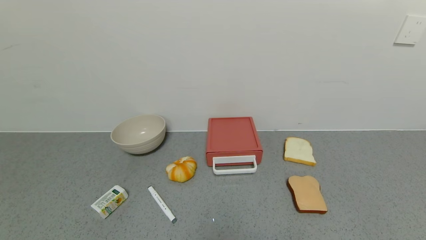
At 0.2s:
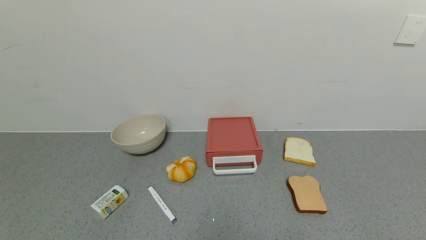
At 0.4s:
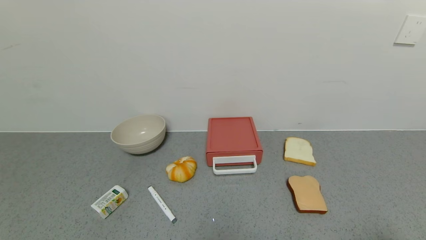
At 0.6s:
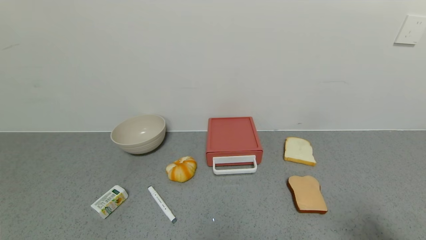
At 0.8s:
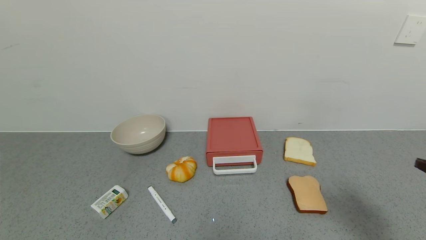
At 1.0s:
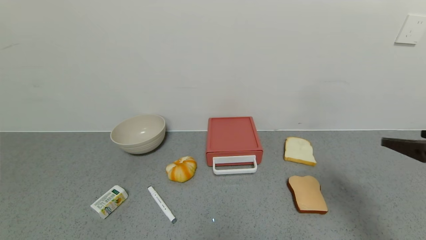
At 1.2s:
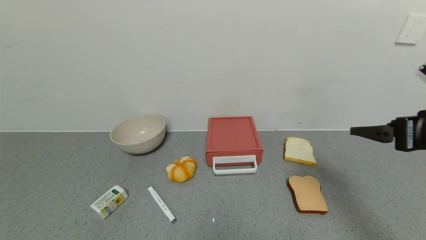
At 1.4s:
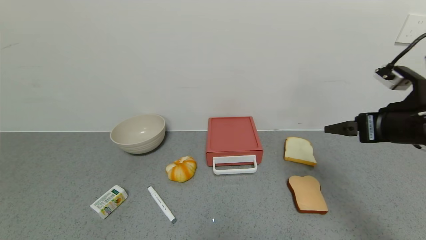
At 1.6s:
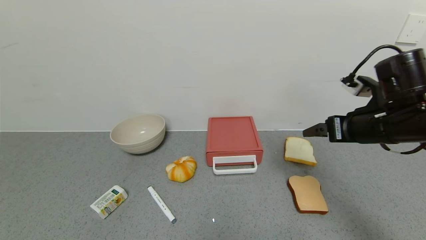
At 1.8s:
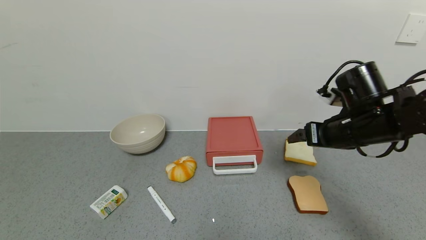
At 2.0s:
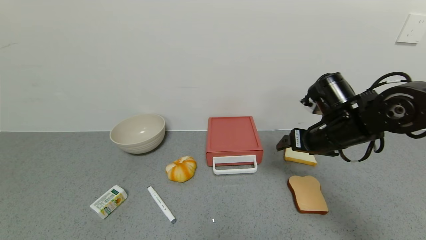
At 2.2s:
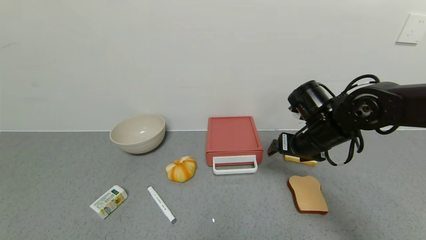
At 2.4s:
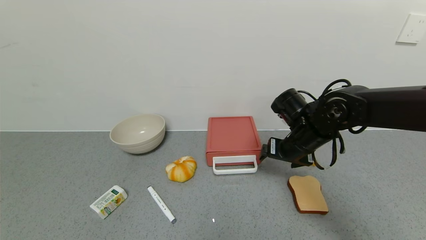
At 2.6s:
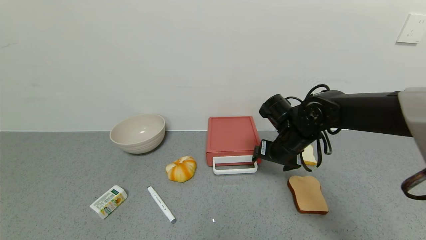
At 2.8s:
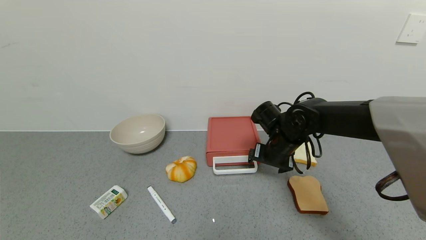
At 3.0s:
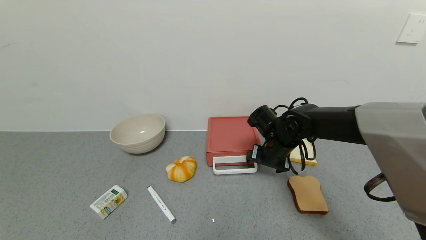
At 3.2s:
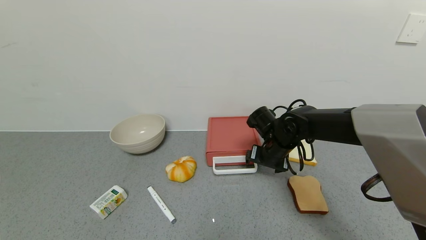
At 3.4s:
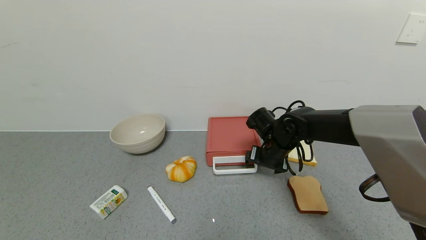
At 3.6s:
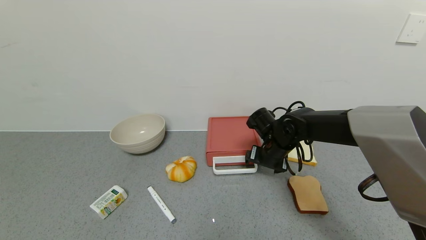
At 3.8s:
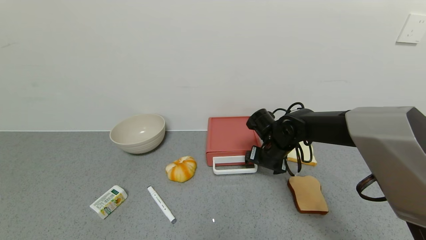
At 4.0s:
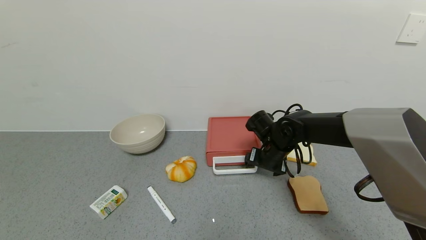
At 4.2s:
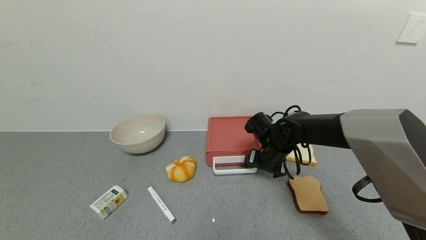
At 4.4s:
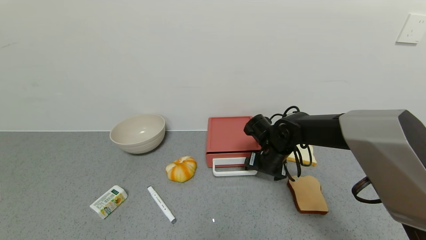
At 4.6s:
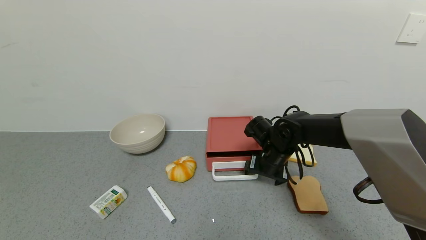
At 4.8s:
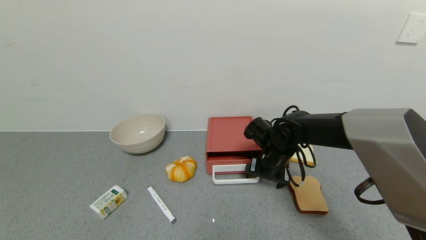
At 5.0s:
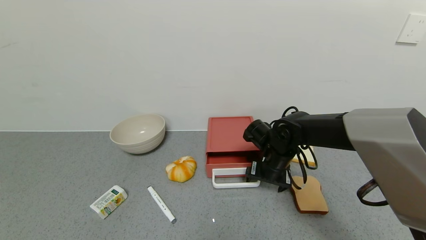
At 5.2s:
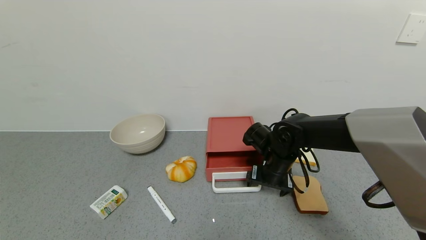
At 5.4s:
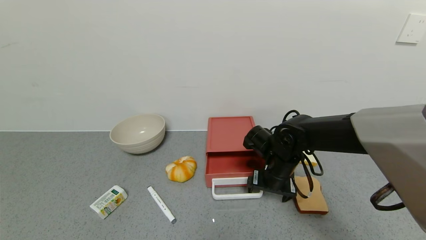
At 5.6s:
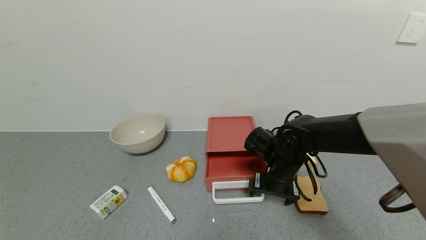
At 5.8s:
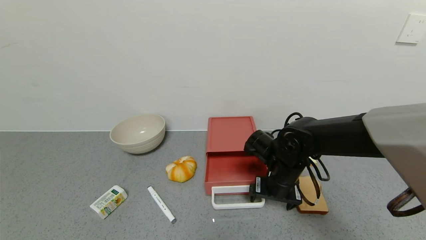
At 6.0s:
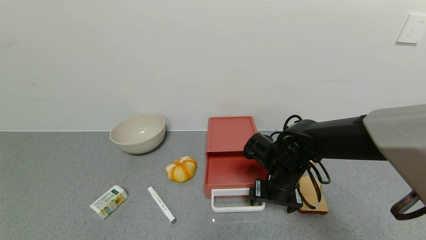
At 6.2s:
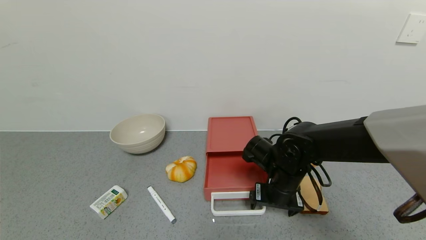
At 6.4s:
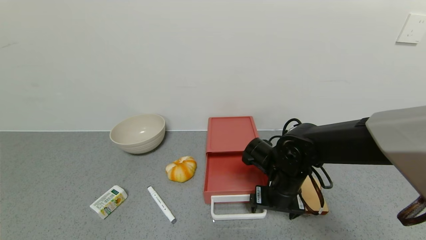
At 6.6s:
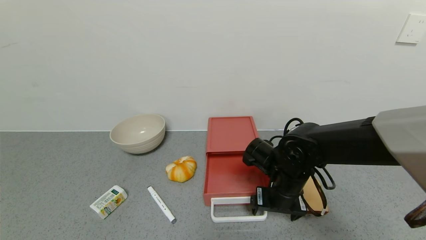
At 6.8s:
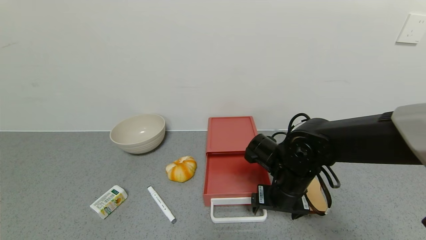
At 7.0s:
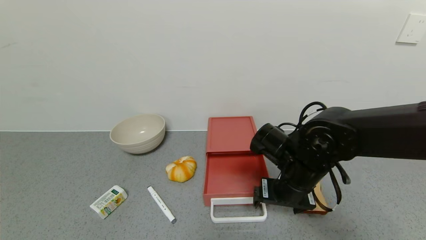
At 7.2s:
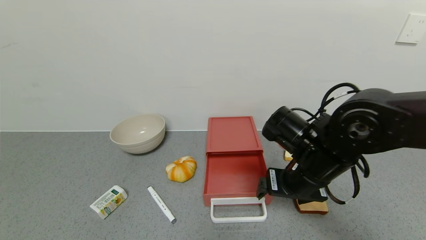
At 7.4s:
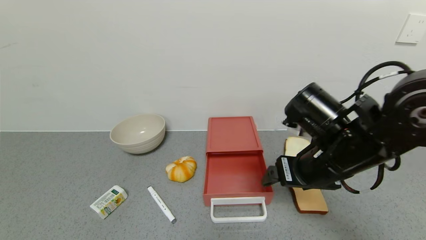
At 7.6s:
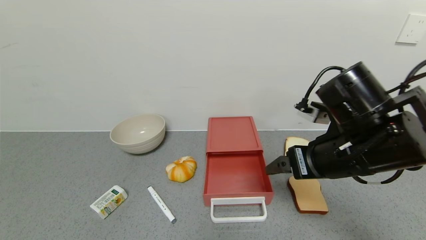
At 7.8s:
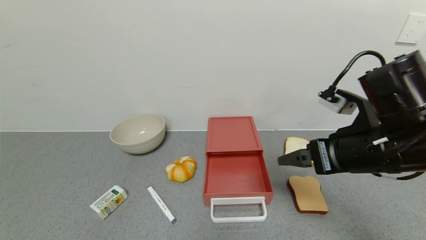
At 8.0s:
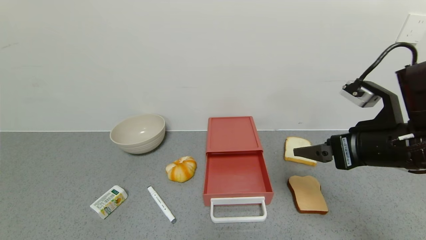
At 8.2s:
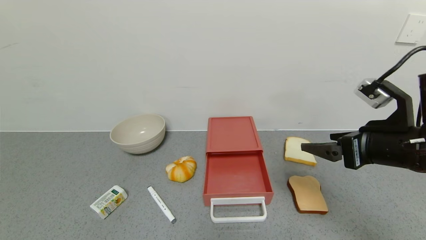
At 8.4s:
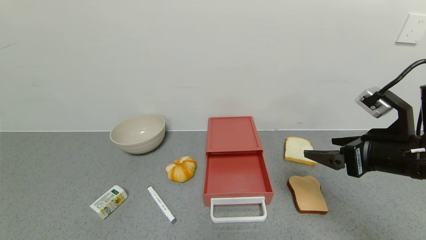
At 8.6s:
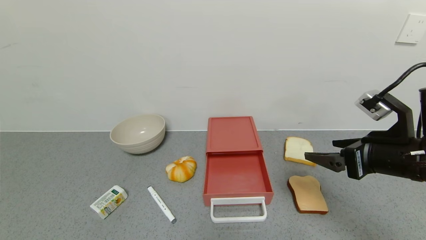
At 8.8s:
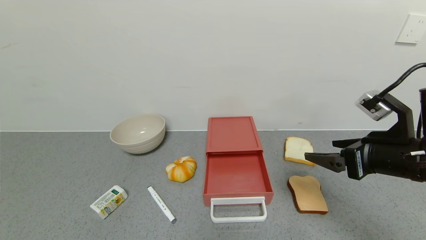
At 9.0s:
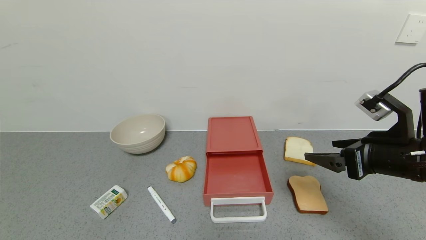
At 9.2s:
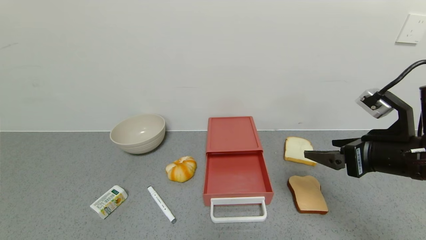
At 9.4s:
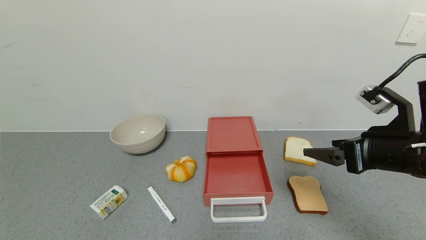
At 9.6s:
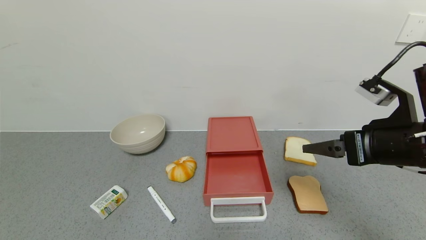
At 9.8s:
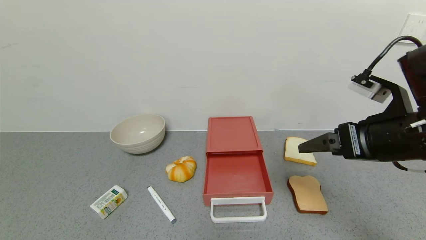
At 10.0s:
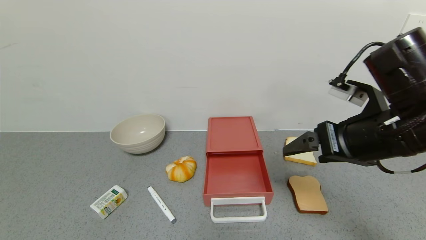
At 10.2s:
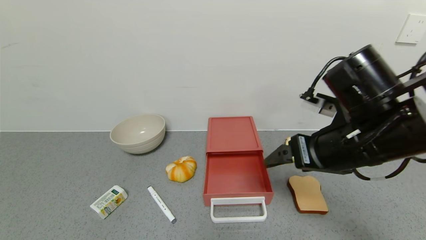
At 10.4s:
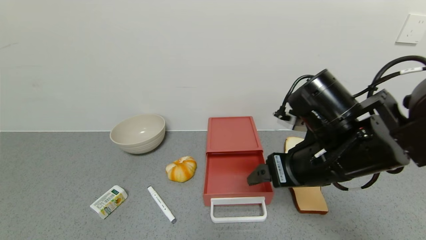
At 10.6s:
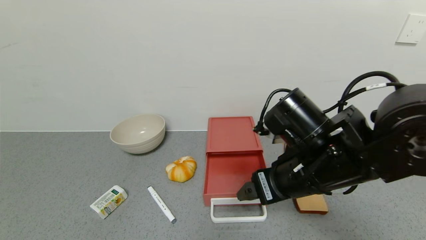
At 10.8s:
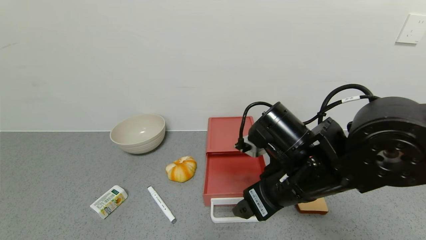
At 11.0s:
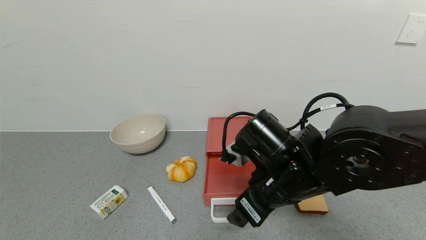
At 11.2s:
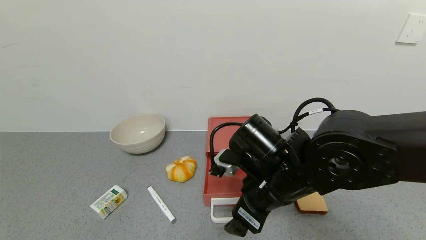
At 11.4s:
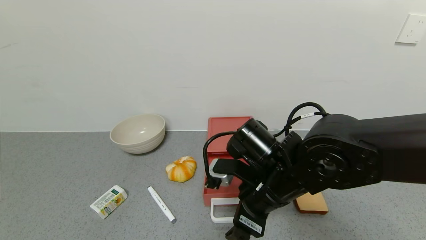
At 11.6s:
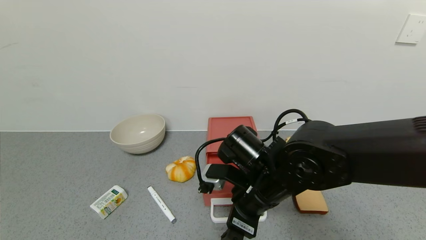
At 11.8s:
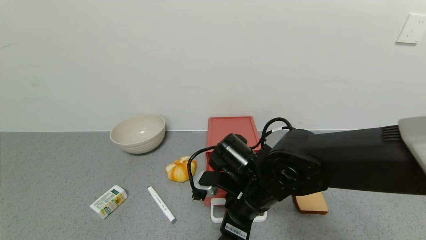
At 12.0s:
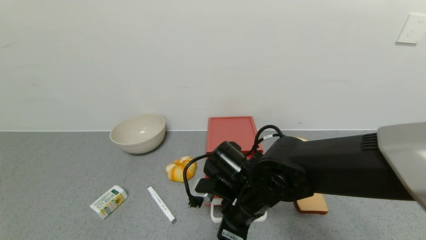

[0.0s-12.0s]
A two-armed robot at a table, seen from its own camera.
Task of the whole recording: use the gripper to open the drawer and close the red drawer.
Step, 0.0s to 7.4s: Open the red drawer with right gripper.
0.0s to 1.6s: The right gripper shifts about 30 cm forward.
1.6s to 3.0s: The right gripper moves to the left, downward and forward, about 20 cm.
3.0s to 4.4s: The grippers stay close to where they were, moving slightly.
4.4s to 6.0s: The right gripper goes about 10 cm backward.
6.0s to 7.6s: The right gripper heads upward, backward and to the right, covering about 15 cm.
7.6s to 9.0s: The right gripper is displaced to the right by approximately 10 cm.
9.0s to 10.4s: The right gripper moves to the left, about 15 cm.
10.4s to 12.0s: The right gripper moves downward and to the left, about 15 cm.

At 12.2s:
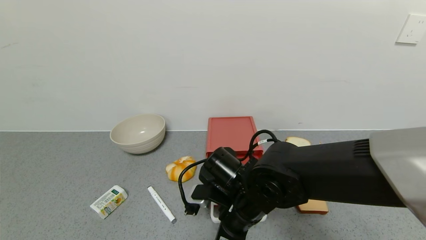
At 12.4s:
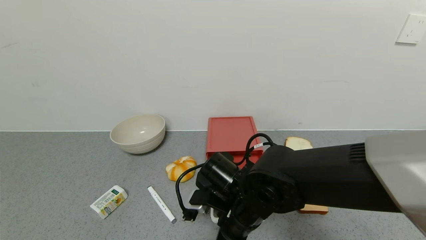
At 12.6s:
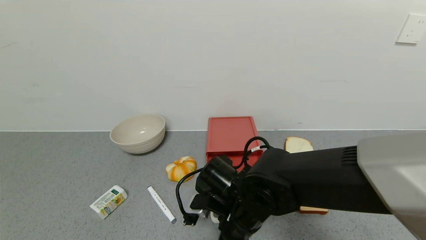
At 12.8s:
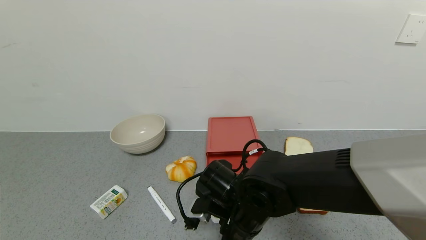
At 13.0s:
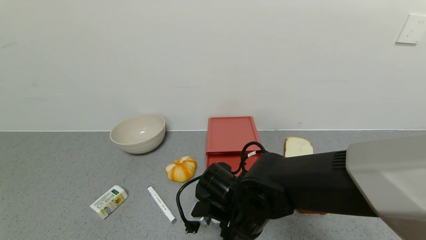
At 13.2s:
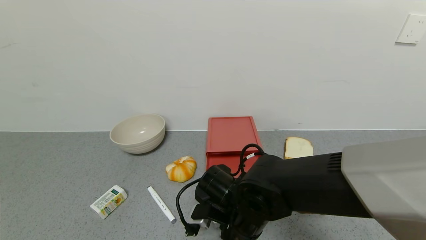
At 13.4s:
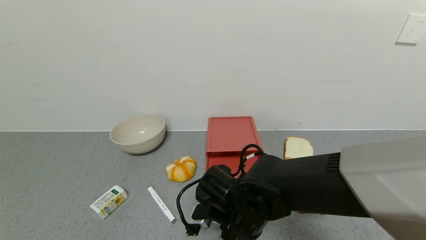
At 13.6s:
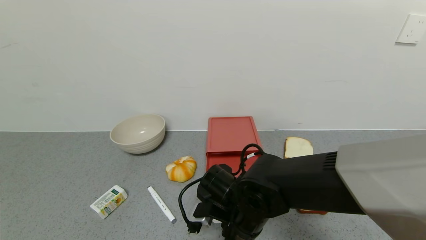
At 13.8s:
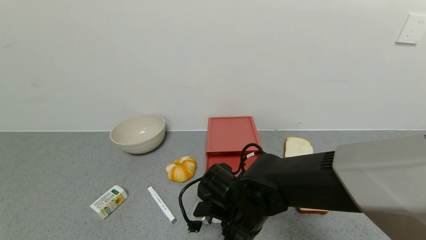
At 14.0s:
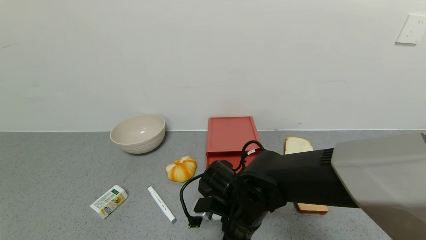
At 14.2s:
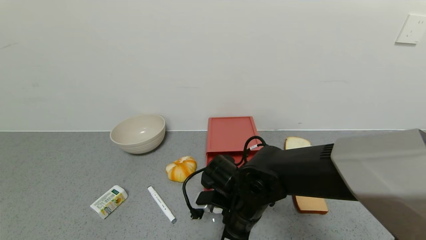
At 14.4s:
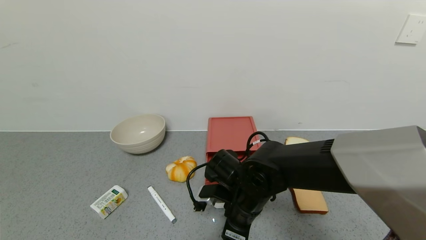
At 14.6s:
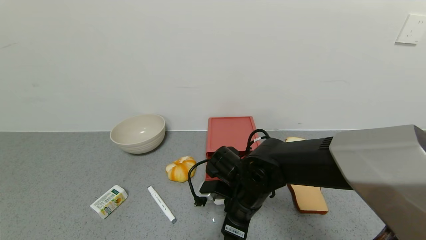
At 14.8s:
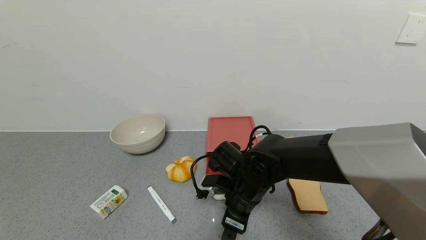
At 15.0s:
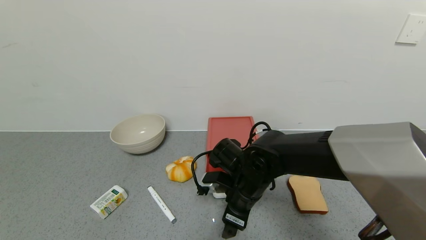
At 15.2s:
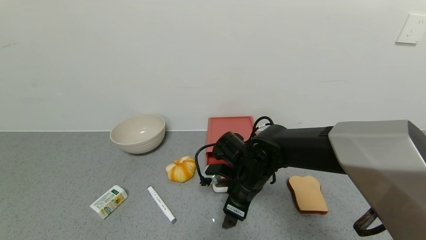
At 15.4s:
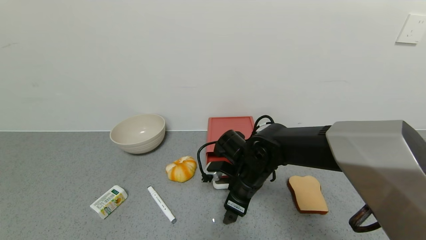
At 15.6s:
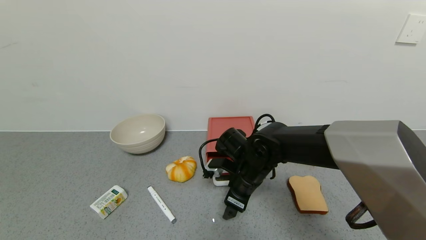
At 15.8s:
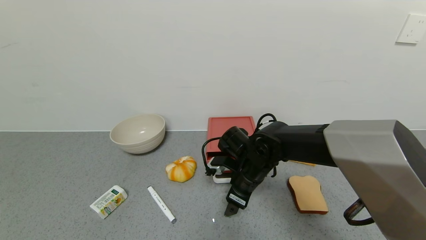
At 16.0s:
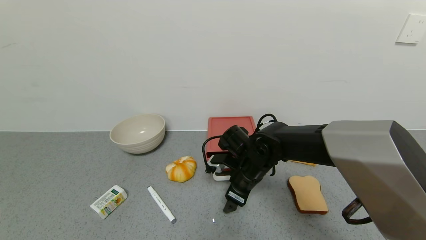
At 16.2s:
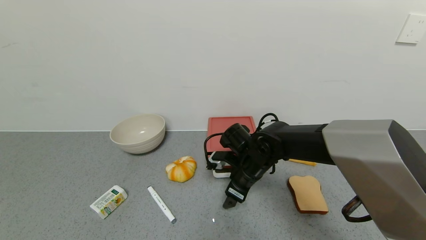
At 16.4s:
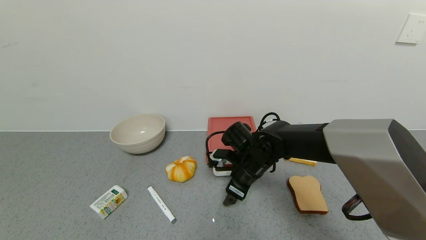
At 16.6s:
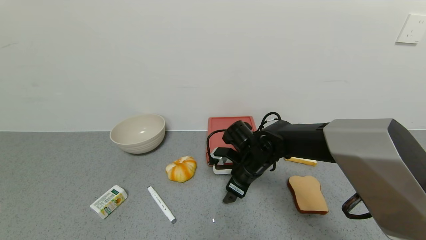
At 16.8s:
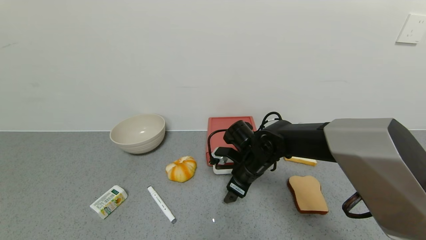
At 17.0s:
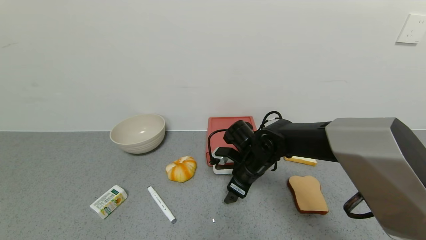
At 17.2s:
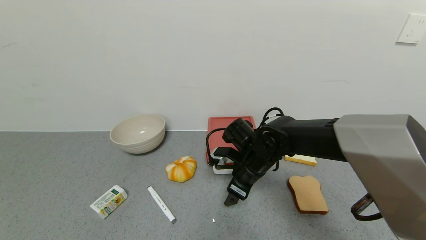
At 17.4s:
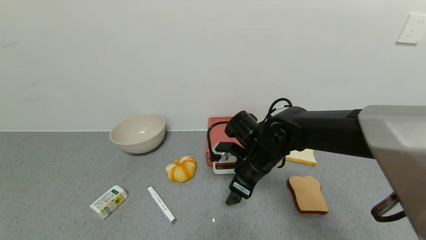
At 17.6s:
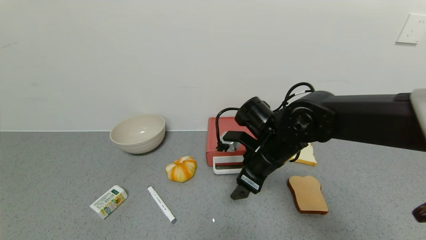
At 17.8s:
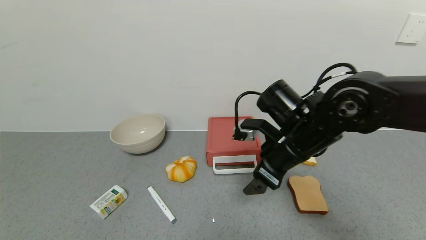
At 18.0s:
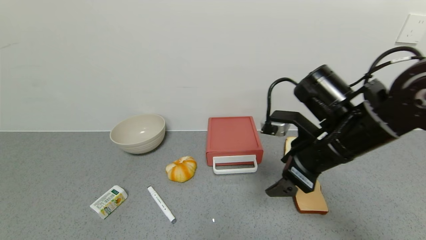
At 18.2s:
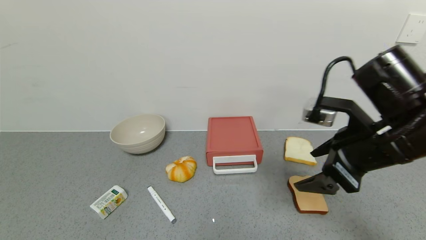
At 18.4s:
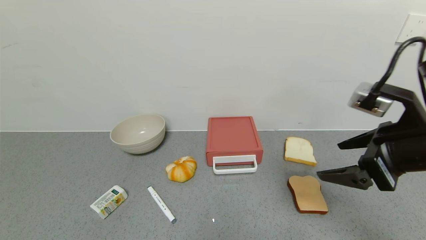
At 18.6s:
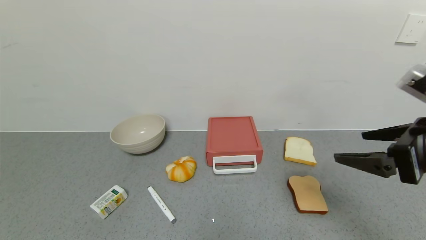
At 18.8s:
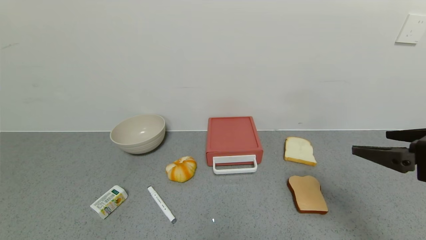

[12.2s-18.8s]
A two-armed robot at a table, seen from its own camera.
Task of the whole recording: use the gripper to open the drawer and close the red drawer.
Step, 12.2s to 17.6s: Close the red drawer with right gripper.
12.2s to 13.8s: The grippers make only small movements.
13.8s to 15.4s: The right gripper is displaced forward by approximately 10 cm.
15.4s to 17.2s: The grippers move only a little.
17.2s to 18.8s: The right gripper heads to the right, backward and upward, covering about 35 cm.
